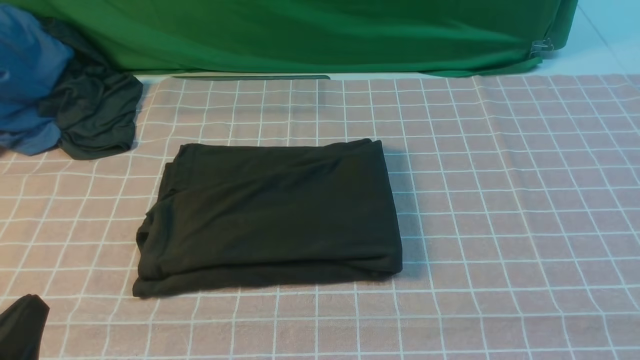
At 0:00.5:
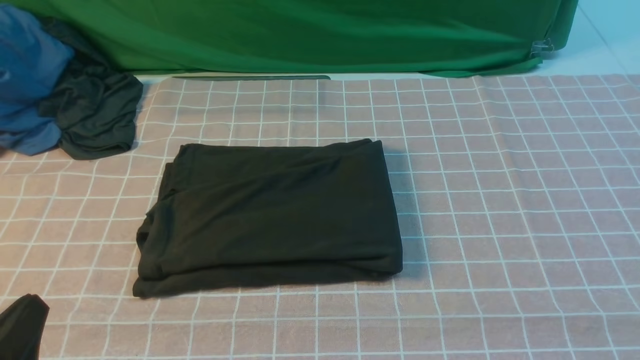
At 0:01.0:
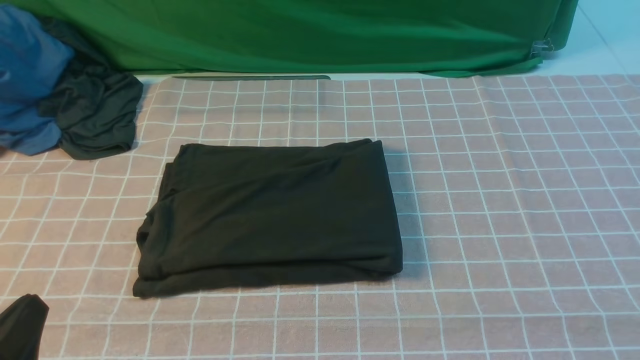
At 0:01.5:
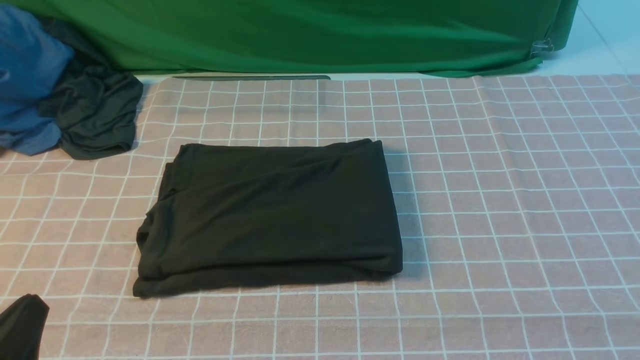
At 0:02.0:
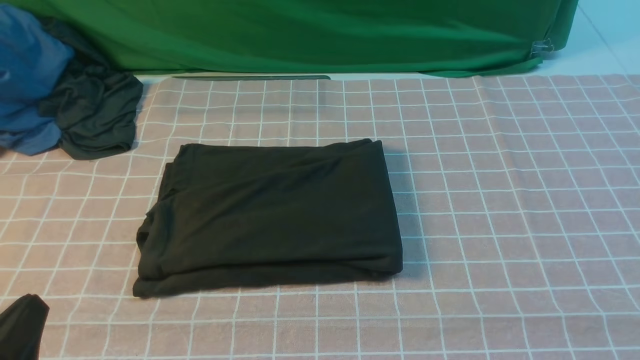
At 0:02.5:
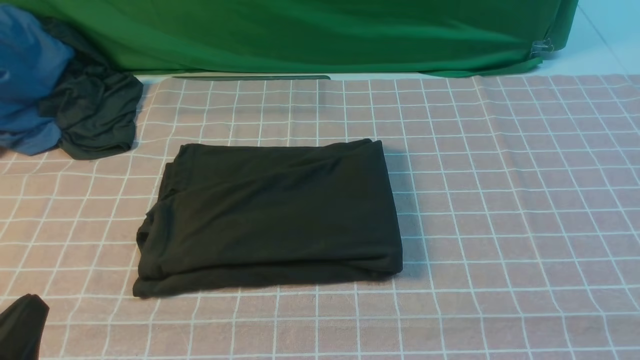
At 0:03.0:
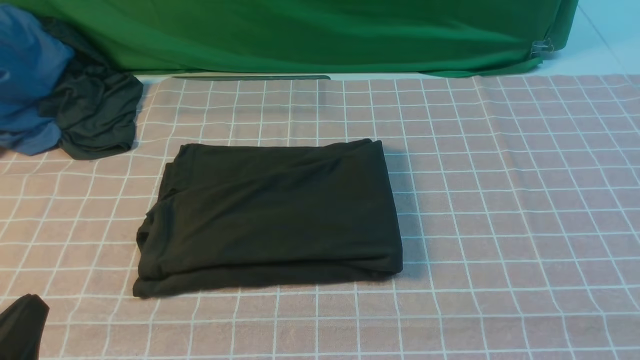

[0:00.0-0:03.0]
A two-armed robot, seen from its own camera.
0:01.5 to 0:03.0: Neither gripper changes place.

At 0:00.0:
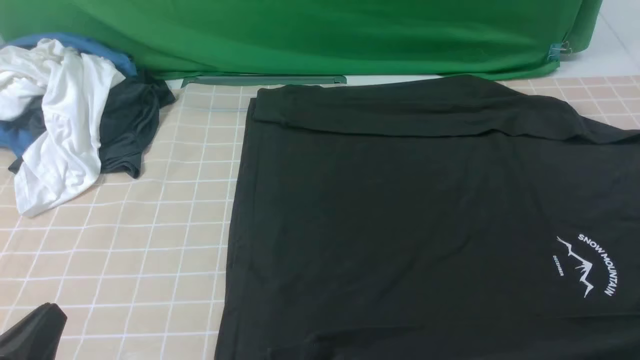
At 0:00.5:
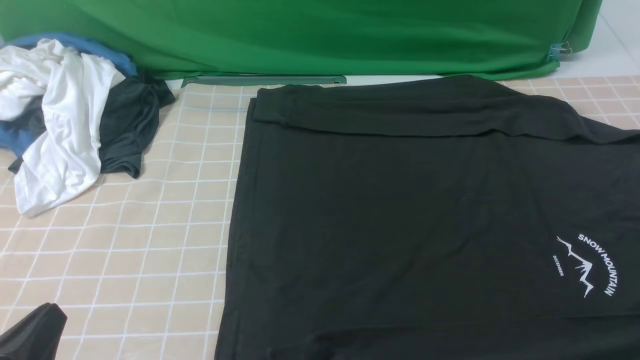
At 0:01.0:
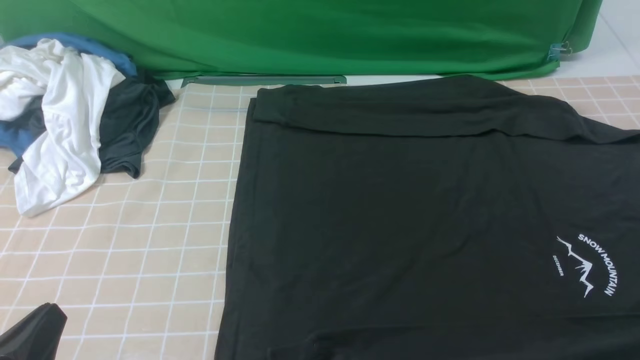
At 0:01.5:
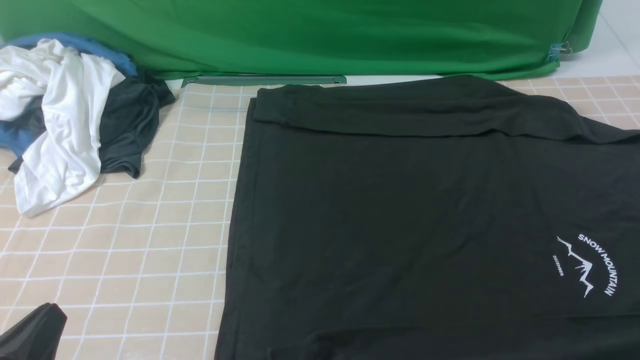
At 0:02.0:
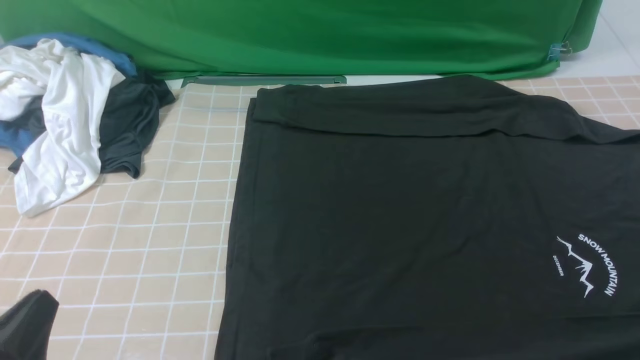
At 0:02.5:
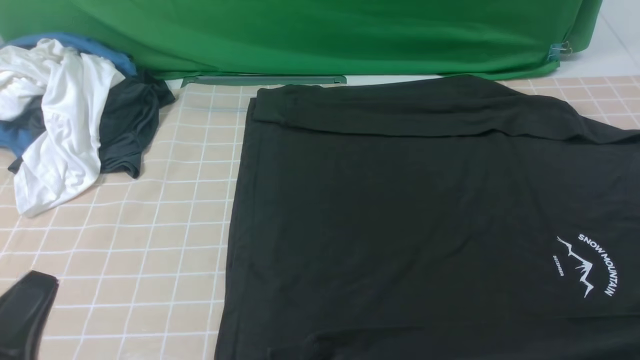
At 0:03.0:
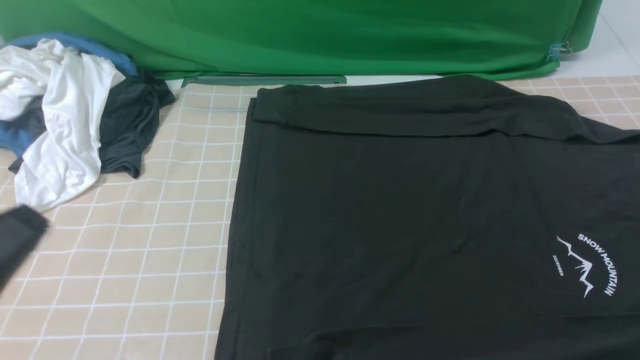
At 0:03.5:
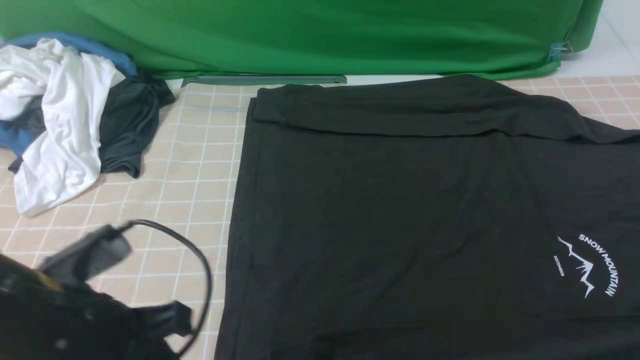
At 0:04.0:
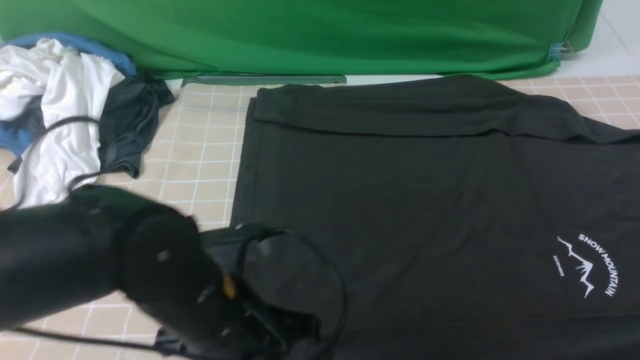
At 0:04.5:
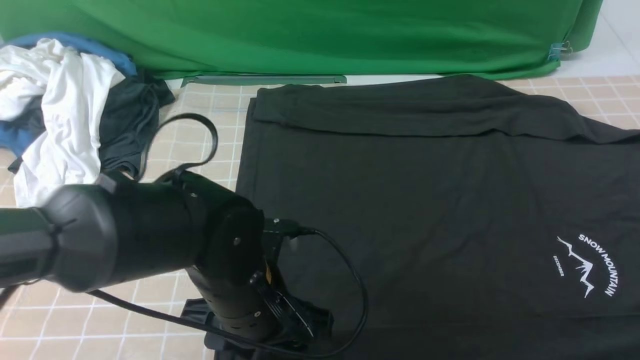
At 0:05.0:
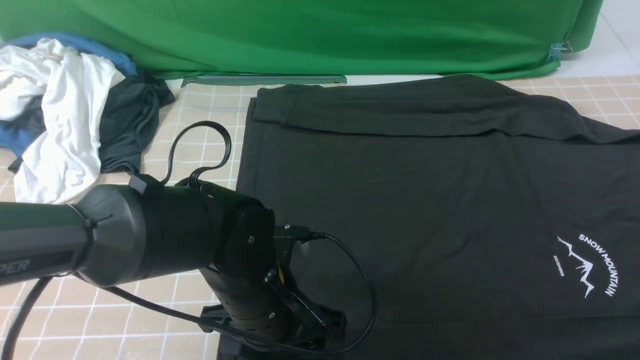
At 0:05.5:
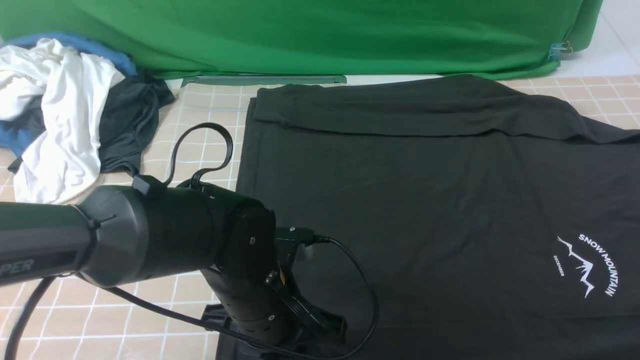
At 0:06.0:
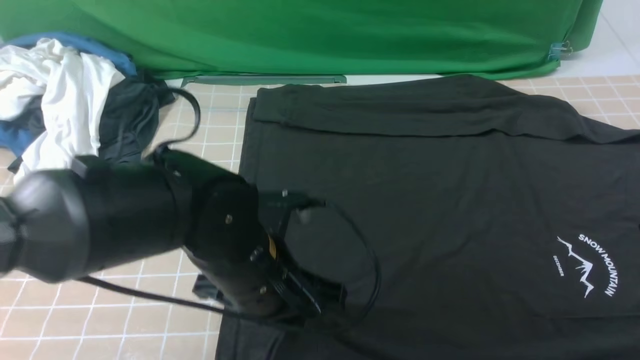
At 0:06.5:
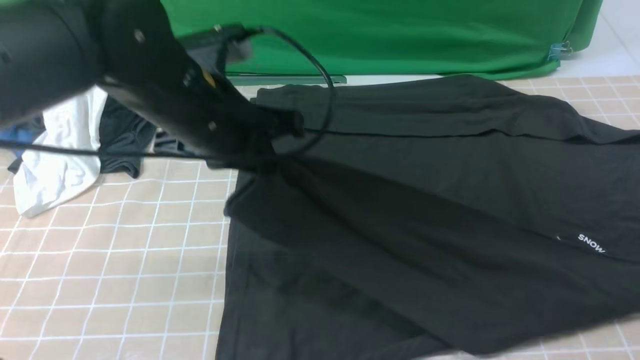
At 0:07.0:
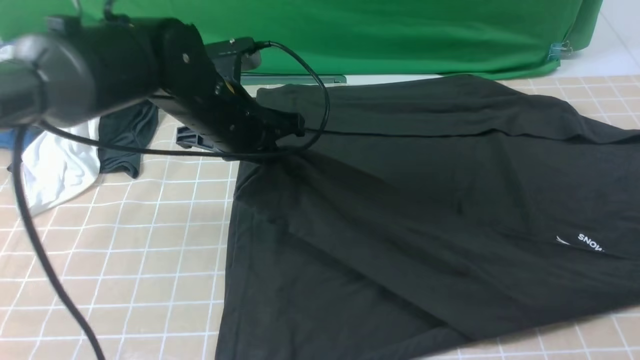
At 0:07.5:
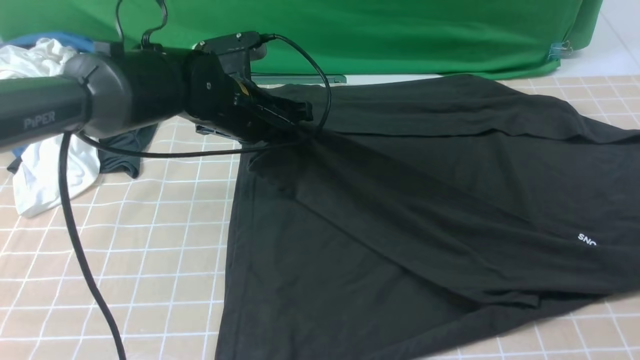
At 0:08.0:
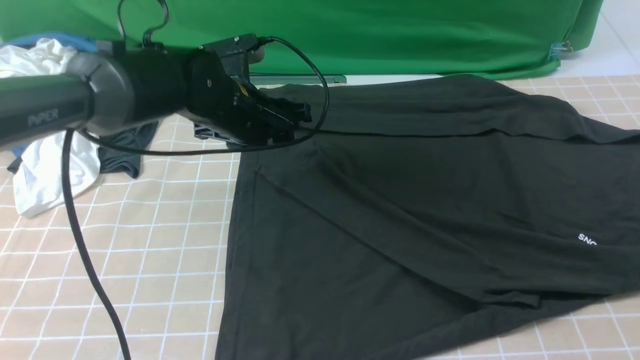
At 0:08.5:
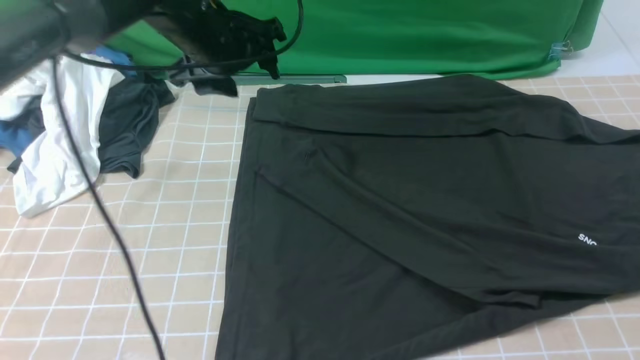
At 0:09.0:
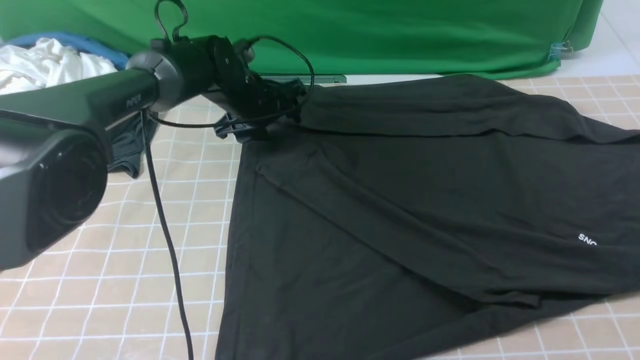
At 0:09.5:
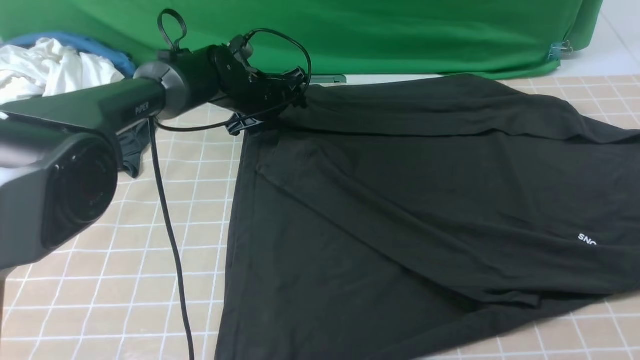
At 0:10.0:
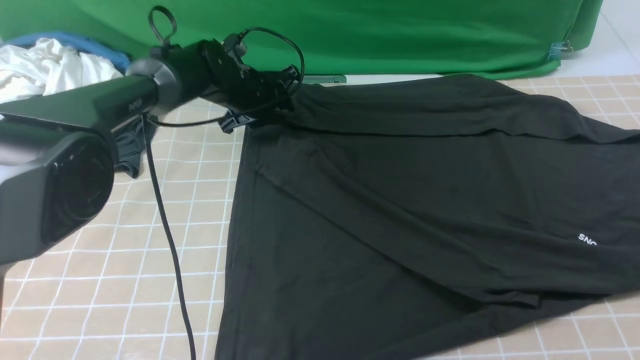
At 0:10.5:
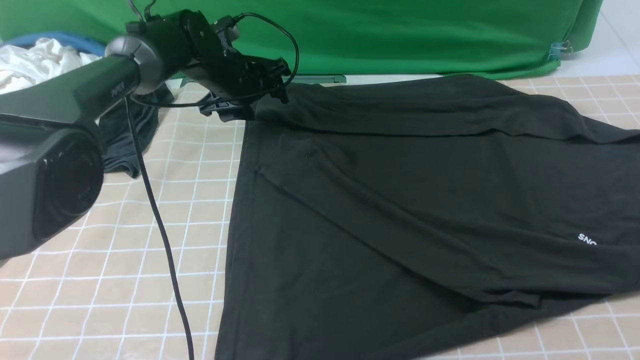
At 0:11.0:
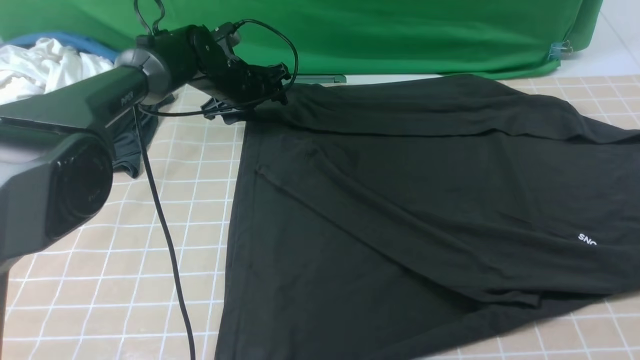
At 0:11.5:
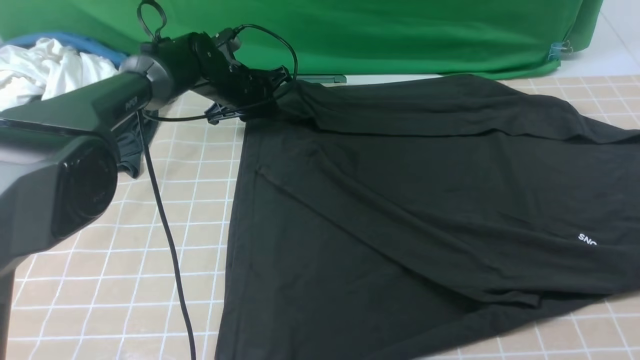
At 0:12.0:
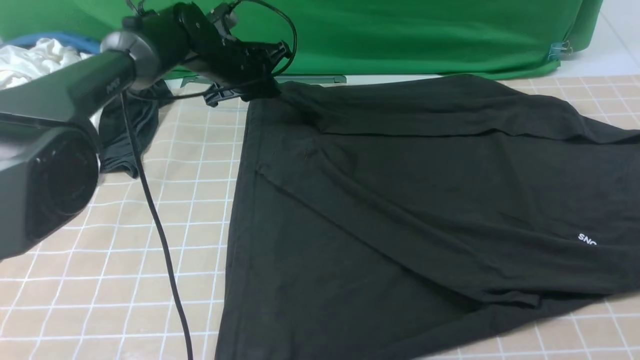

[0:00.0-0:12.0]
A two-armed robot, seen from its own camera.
Step, 0:00.0 to 0:05.5: use the left arm to clamp the cuff closest to it.
Step, 0:06.0 to 0:08.0: use the left arm to drag and place the cuff at the centered position on the left edge of the fabric.
0:02.0 to 0:04.0: The left gripper is displaced to the right and forward by roughly 20 cm. The right gripper shifts roughly 15 cm upward and forward.
0:04.0 to 0:06.0: The left gripper ends up some 5 cm from where it was, and opens and closes again.
0:06.0 to 0:08.0: The left gripper is displaced forward by some 15 cm, and opens.
0:08.0 to 0:10.0: The left gripper is displaced forward and downward by approximately 15 cm.
0:10.0 to 0:12.0: The left gripper closes its fingers.

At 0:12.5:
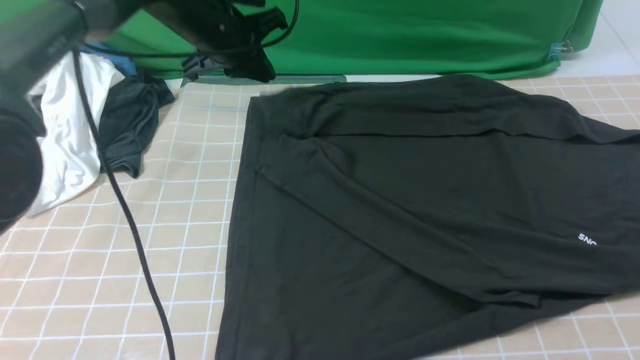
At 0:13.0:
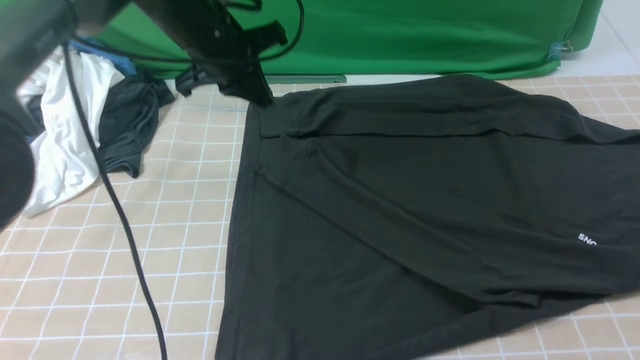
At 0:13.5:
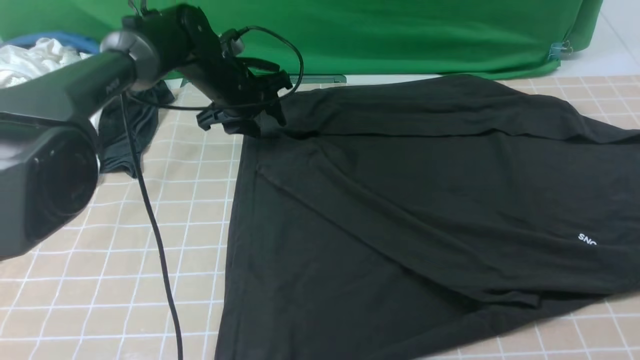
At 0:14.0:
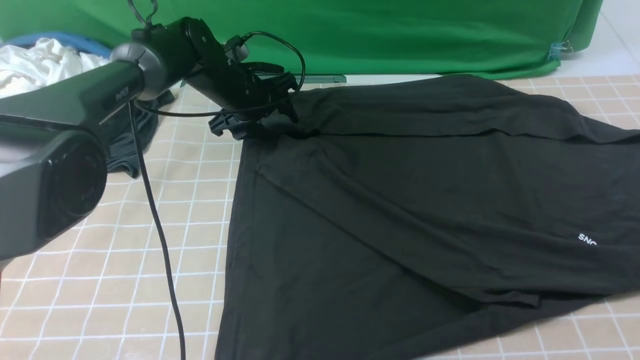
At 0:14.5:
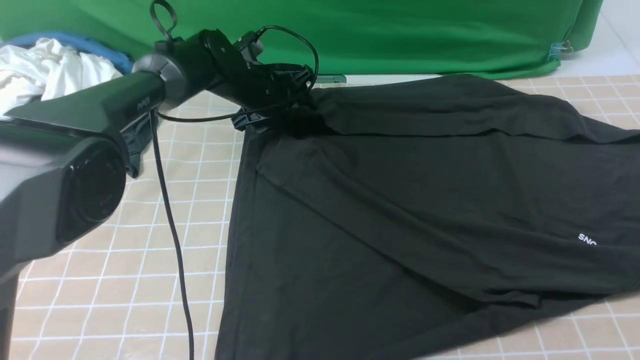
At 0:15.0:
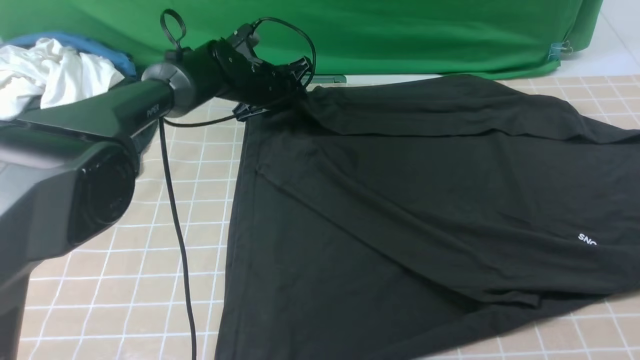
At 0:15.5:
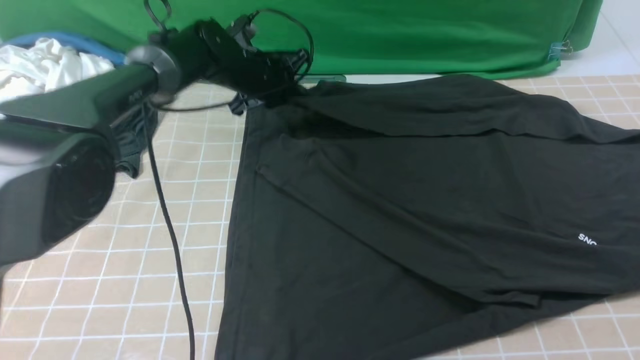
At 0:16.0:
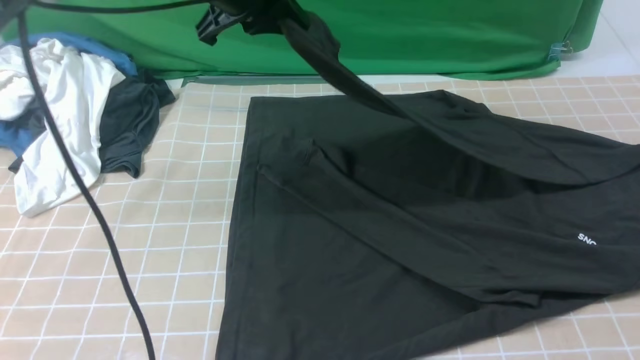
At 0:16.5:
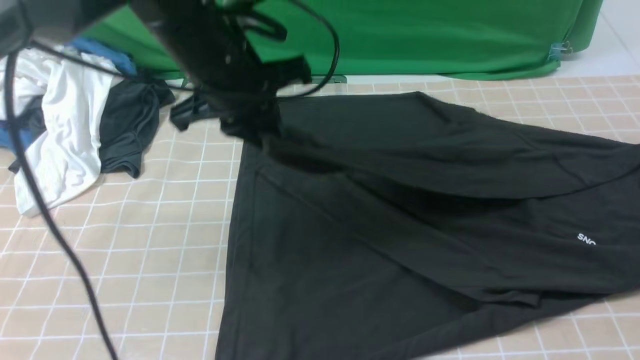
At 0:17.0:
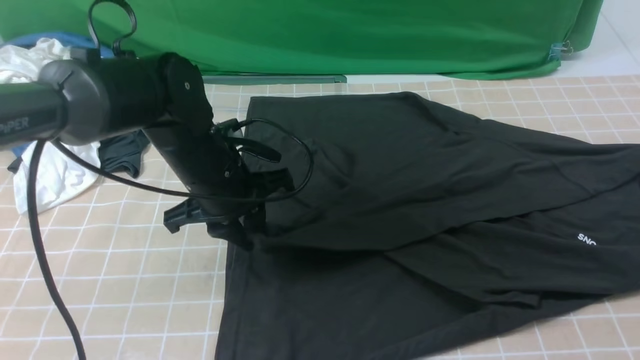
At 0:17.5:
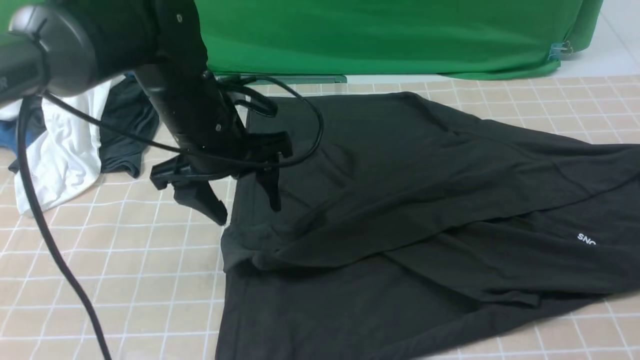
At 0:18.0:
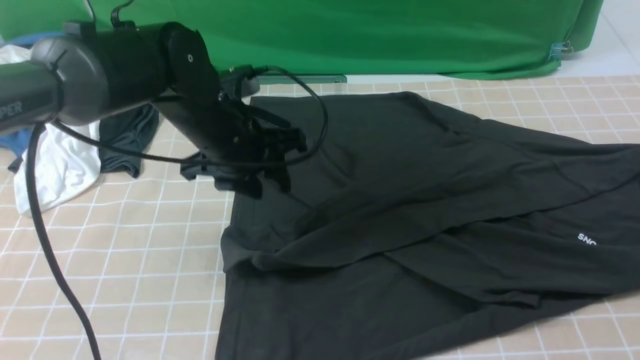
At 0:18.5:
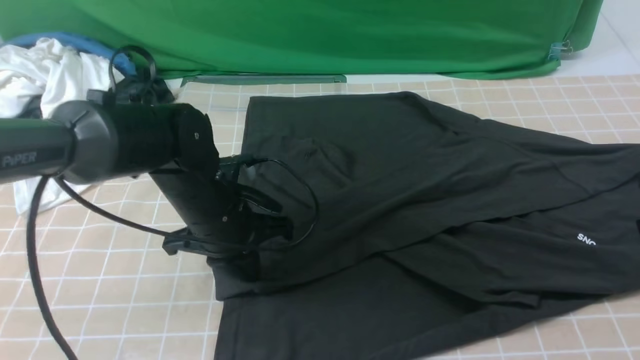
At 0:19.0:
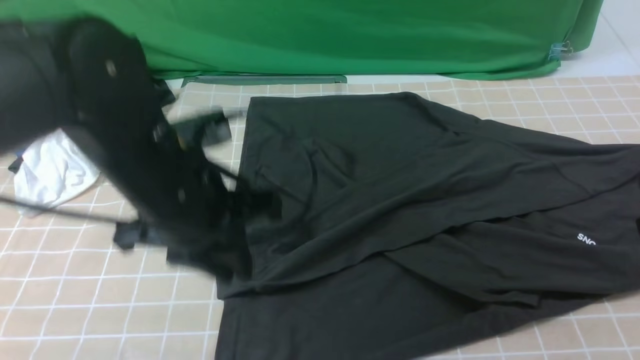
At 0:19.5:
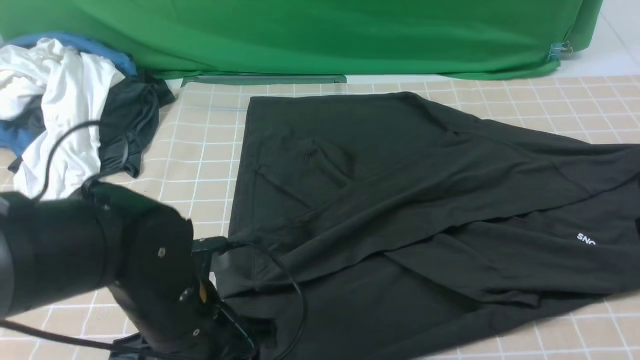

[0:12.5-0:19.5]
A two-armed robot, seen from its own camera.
Step, 0:12.5 to 0:15.0: use the left arm to clamp the cuff farthest from it.
Step, 0:15.5 to 0:17.0: use the left arm to drag and drop the cuff onto the cuff closest to the left arm.
0:12.5 to 0:14.5: The left gripper goes approximately 10 cm downward, and opens up.
0:14.5 to 0:16.0: The left gripper heads upward and backward, covering about 20 cm, and closes its fingers.
0:16.0 to 0:17.5: The left gripper shifts some 15 cm downward and backward, and opens up.
0:17.5 to 0:19.5: The left gripper heads backward, covering about 15 cm, and closes, then reopens.
